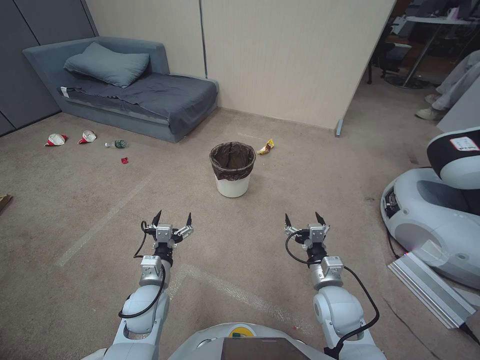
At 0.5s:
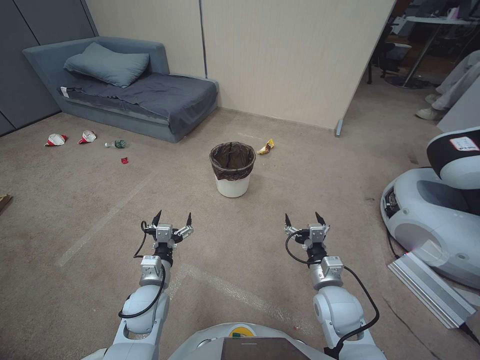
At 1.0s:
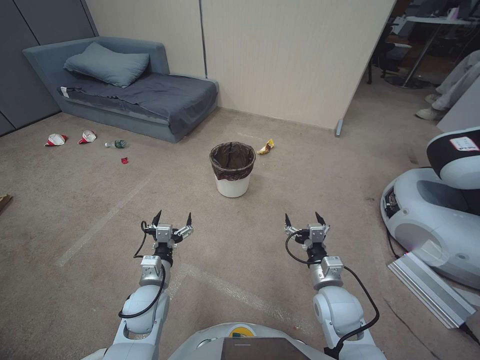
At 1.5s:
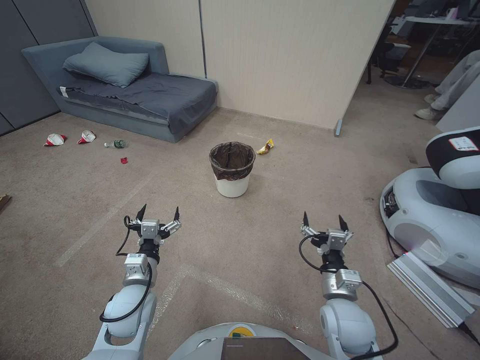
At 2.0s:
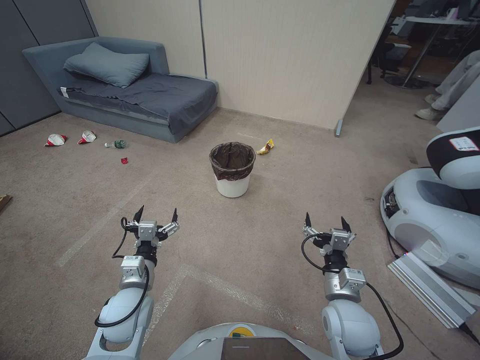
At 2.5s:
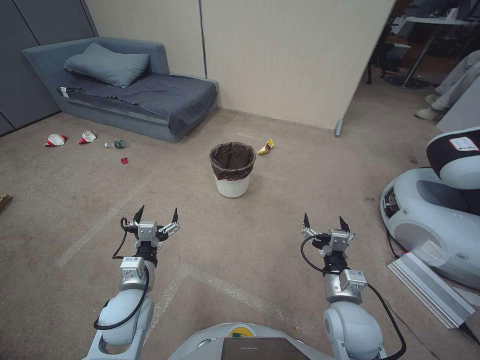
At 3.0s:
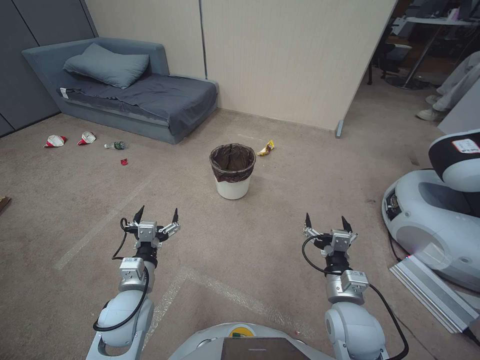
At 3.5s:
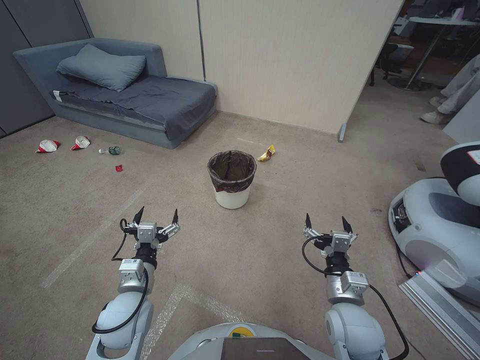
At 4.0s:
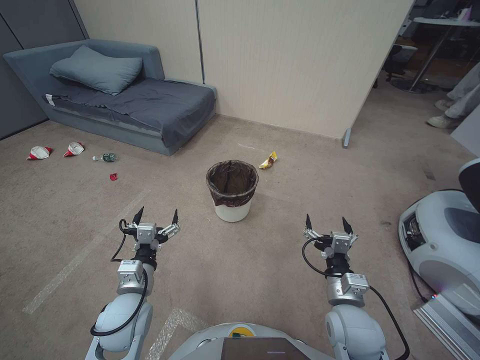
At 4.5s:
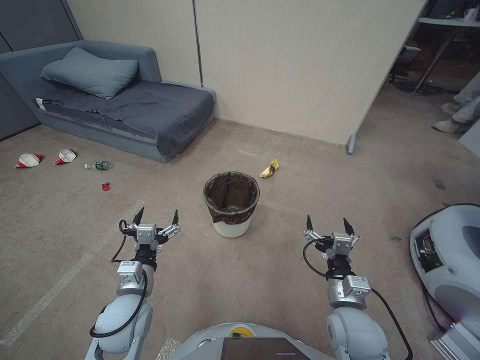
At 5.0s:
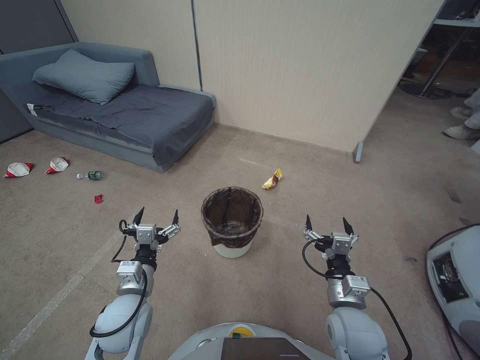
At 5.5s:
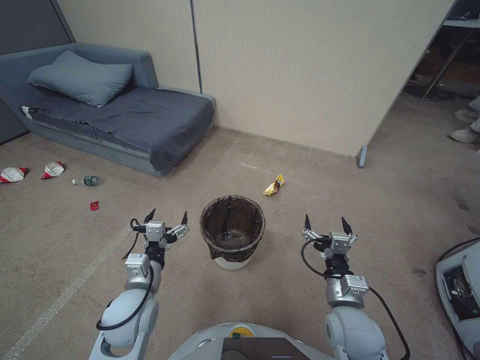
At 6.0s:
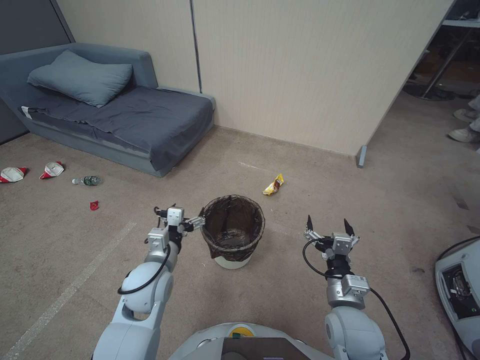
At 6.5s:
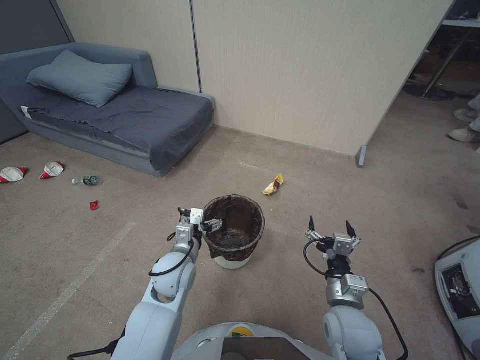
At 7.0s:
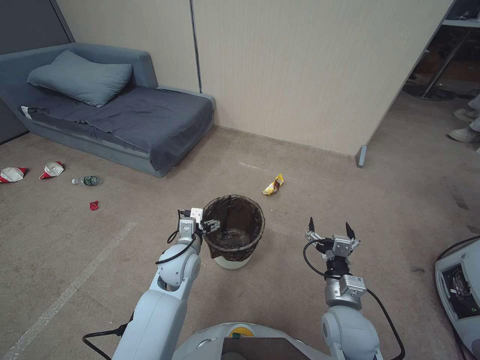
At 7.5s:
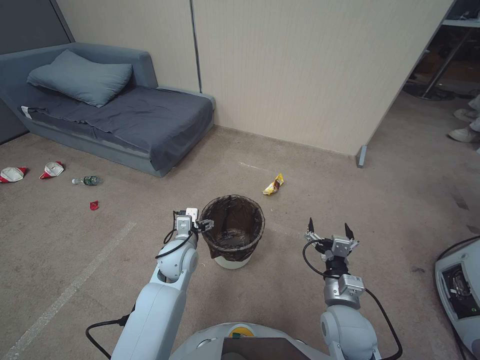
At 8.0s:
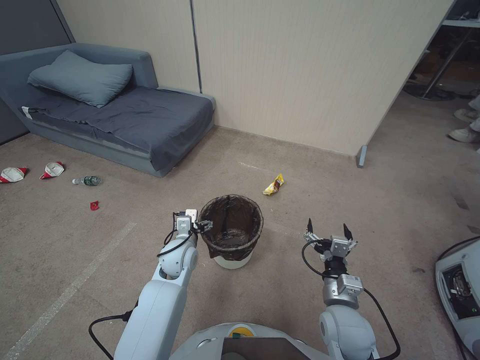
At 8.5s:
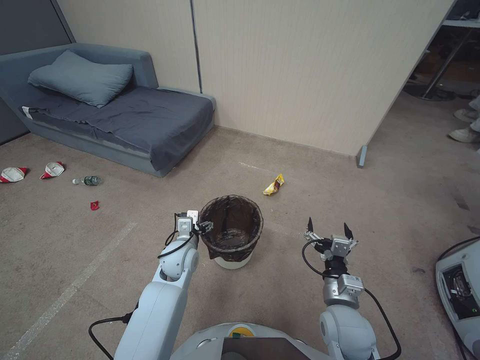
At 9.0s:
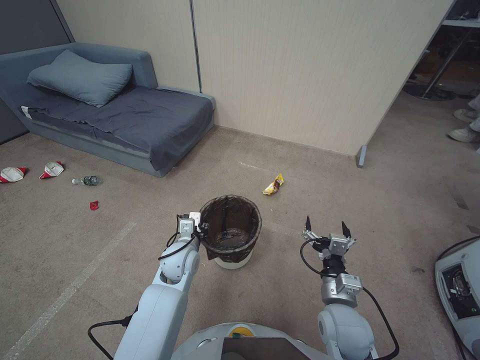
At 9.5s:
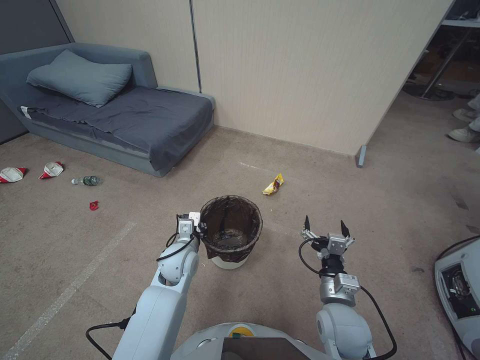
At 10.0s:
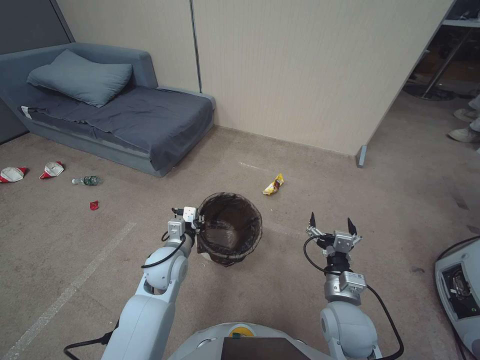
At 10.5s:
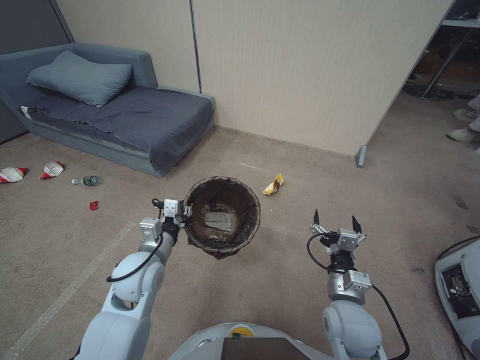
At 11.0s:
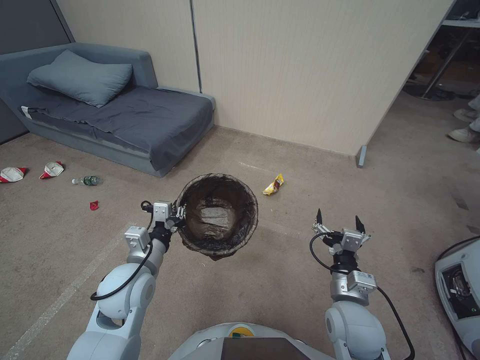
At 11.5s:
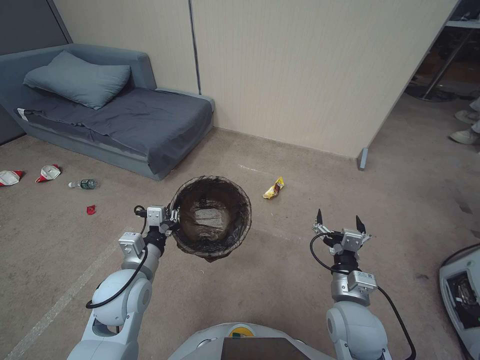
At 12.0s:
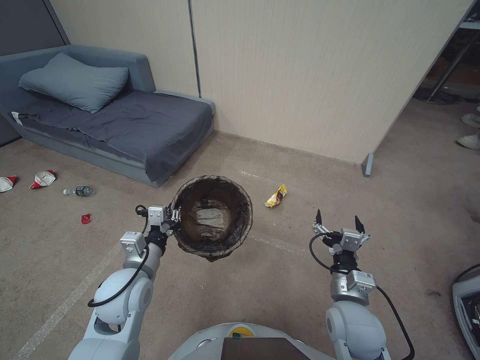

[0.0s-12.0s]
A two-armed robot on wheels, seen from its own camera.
Task of the whole recording: Pick up the trash bin, then pick up the garbage from the floor and place it into the trash bin.
4.0s to 6.0s: The left gripper moves approximately 5 cm.
6.0s to 8.0s: The left gripper is displaced forward and downward by approximately 10 cm.
8.0s to 10.0s: The left gripper closes.
10.0s to 12.0s: The left gripper shifts roughly 10 cm backward, to the left and upward.

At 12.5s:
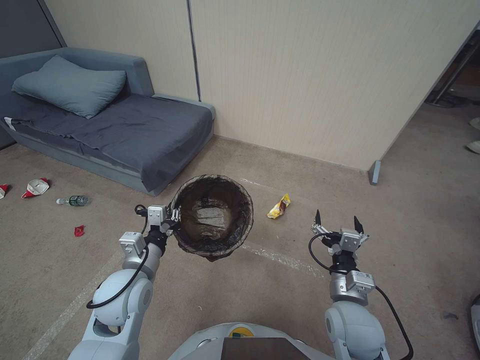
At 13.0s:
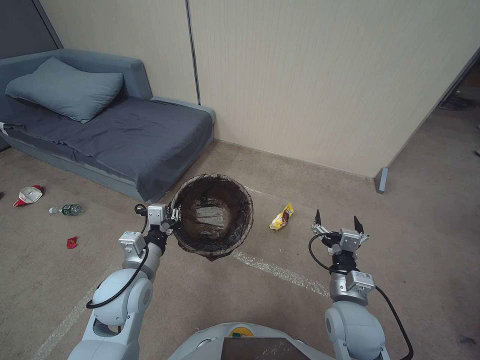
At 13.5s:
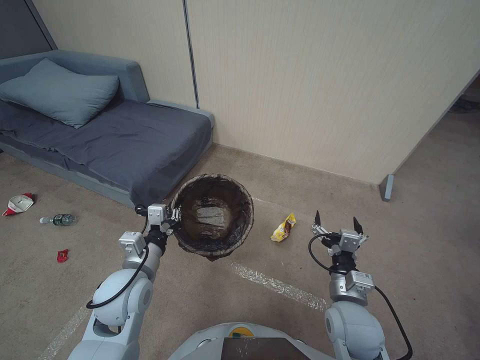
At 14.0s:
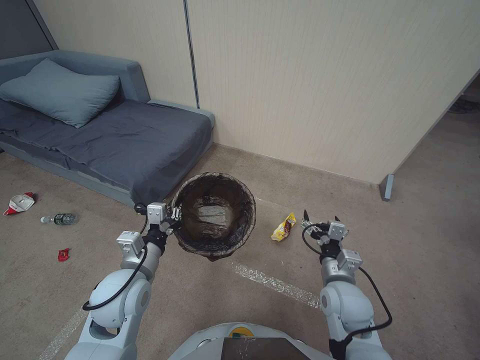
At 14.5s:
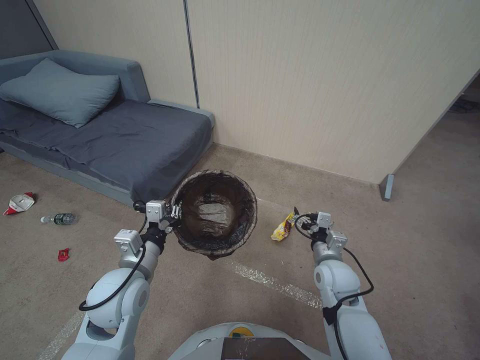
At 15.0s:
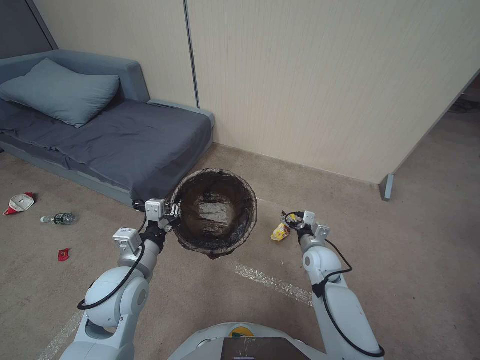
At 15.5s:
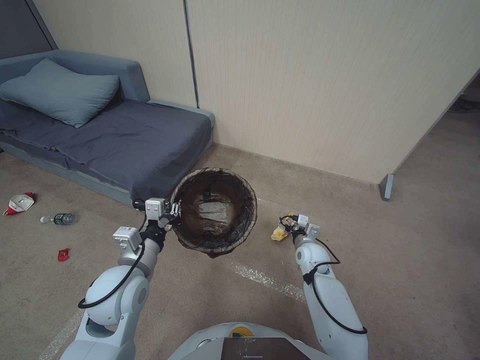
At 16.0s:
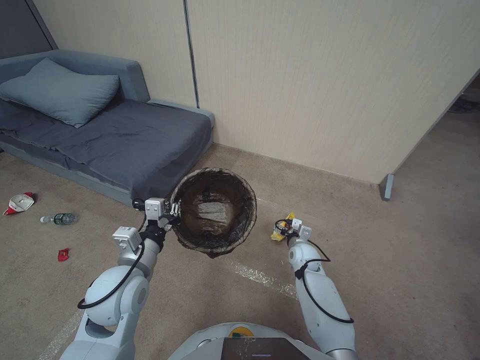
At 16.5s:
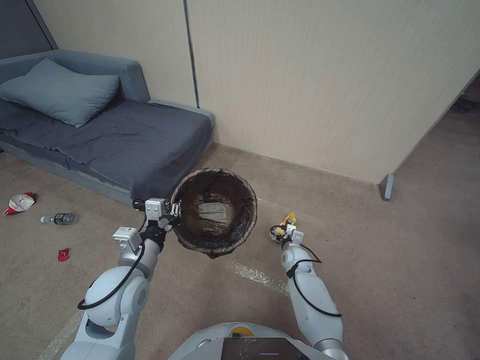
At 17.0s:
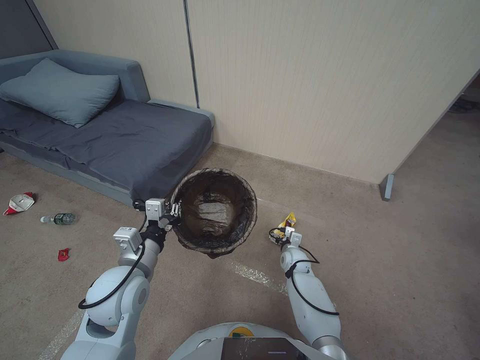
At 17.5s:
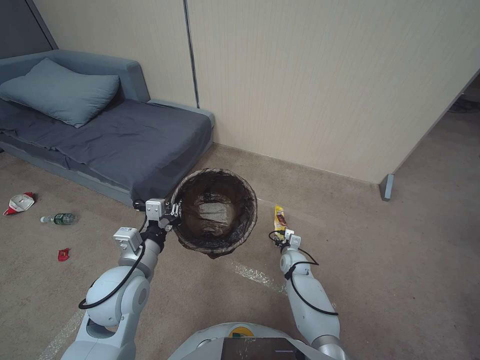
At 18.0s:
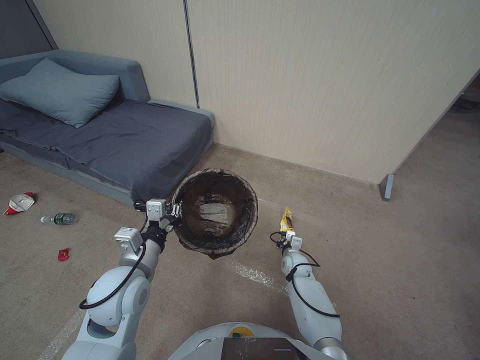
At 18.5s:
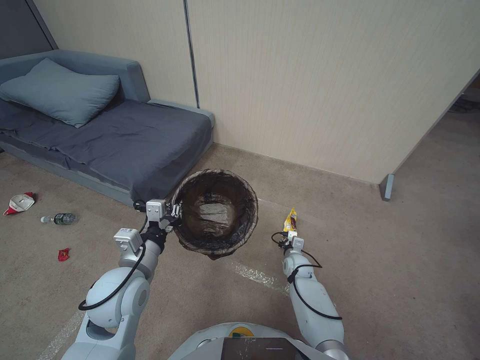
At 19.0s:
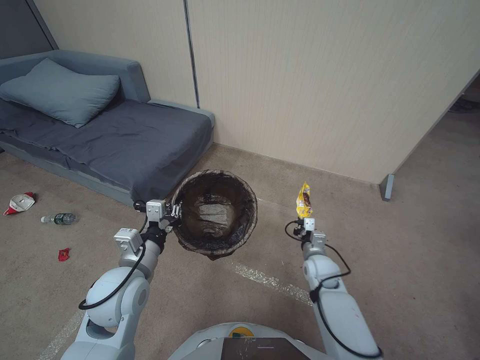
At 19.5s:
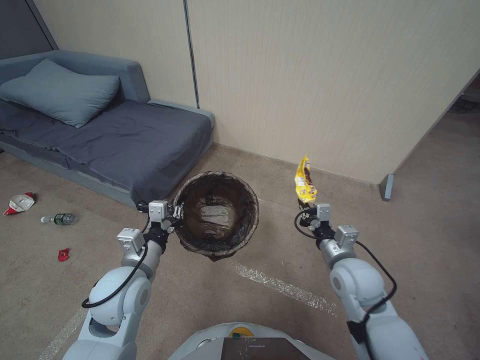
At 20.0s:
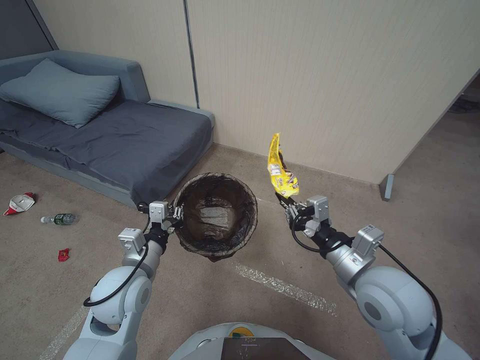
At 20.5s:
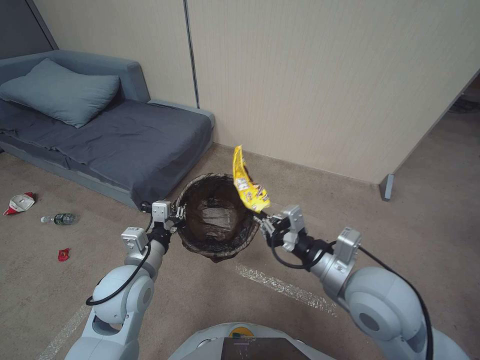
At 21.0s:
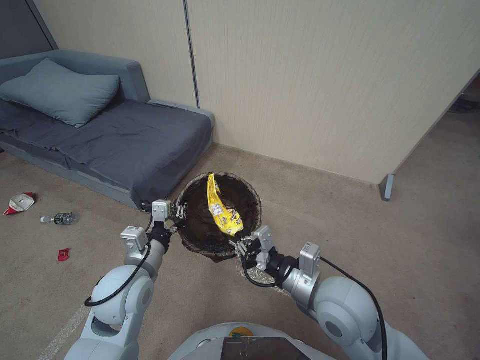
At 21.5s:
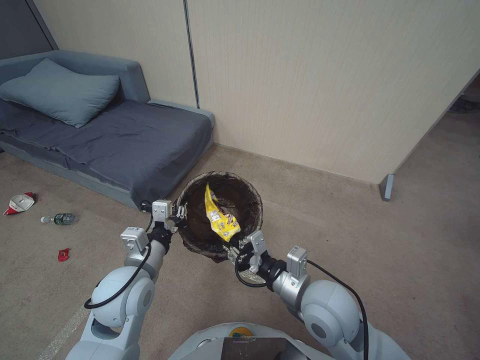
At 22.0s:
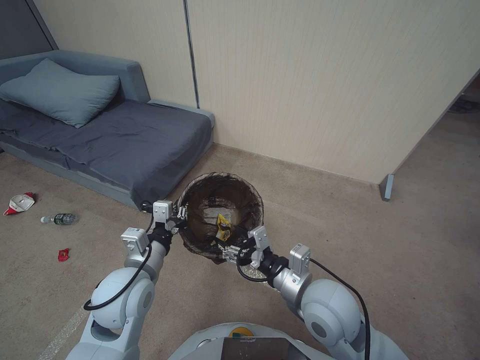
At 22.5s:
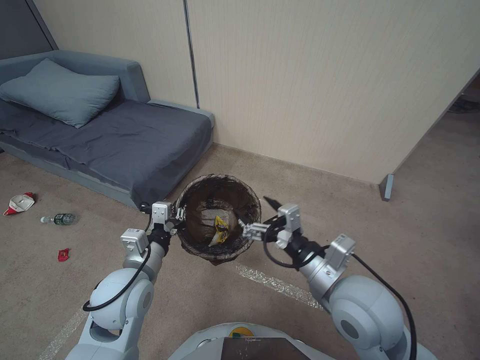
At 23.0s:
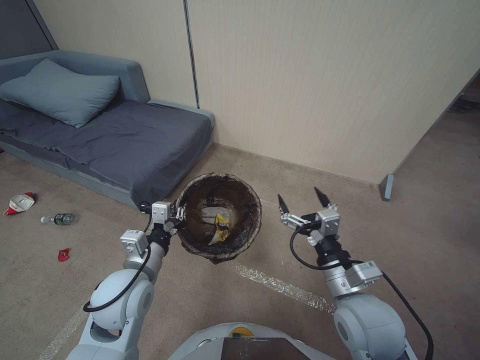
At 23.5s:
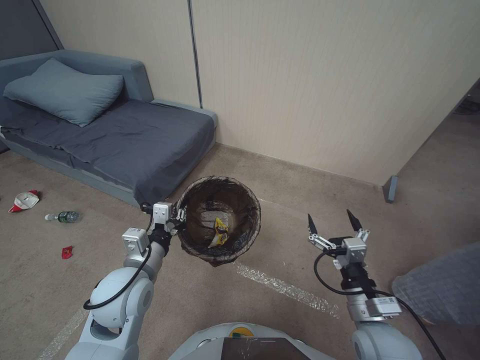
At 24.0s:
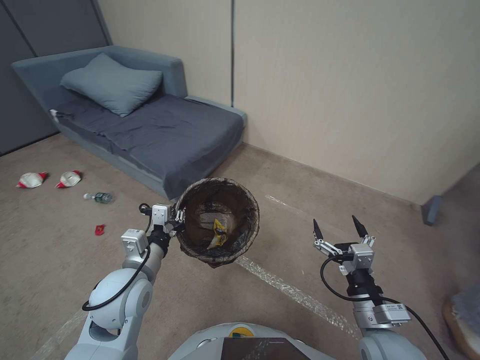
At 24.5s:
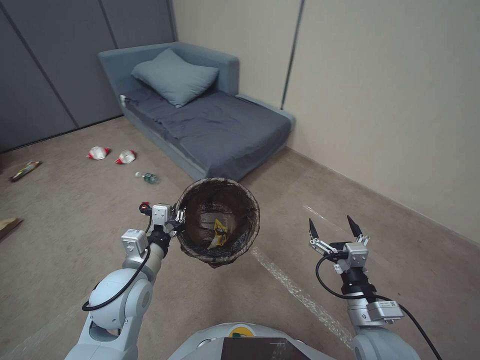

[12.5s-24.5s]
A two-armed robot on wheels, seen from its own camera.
Task of the whole recording: Pick up the trash bin, then pick up the garbage from the floor and place it into the trash bin.
12.5s to 14.5s: The right gripper travels forward by some 10 cm.
14.5s to 16.5s: The right gripper is displaced downward and forward by about 20 cm.
16.5s to 18.5s: The right gripper closes its fingers.
18.5s to 20.5s: The right gripper goes approximately 40 cm upward and backward.
20.5s to 22.5s: The right gripper opens its fingers.
22.5s to 24.5s: The right gripper travels downward, to the right and backward by about 15 cm.

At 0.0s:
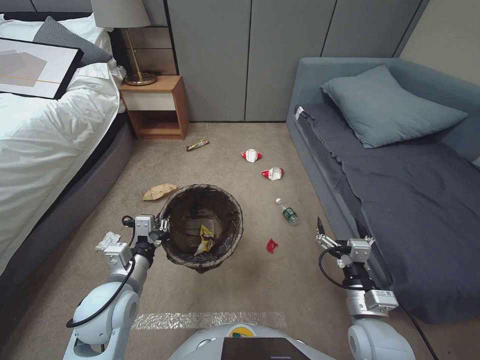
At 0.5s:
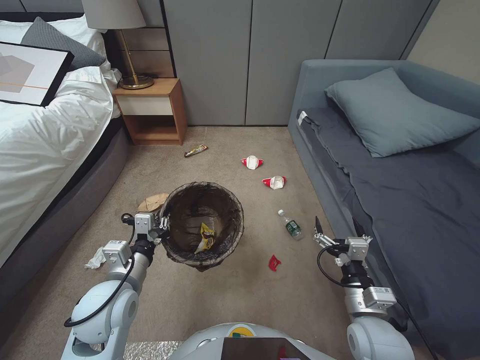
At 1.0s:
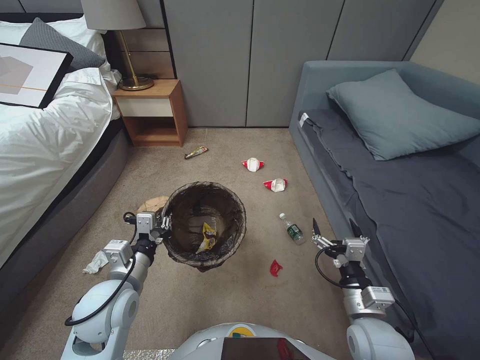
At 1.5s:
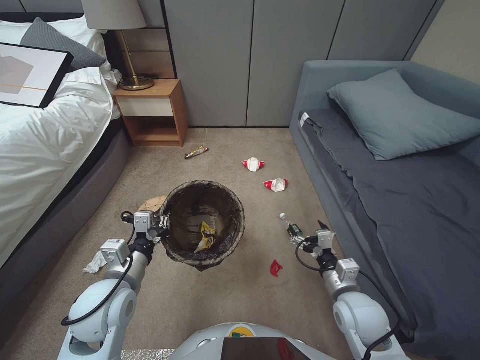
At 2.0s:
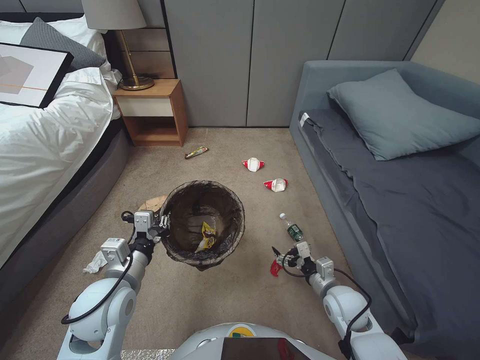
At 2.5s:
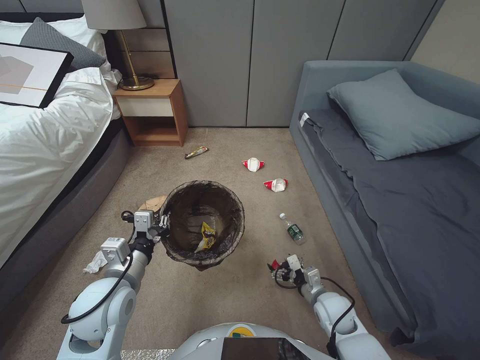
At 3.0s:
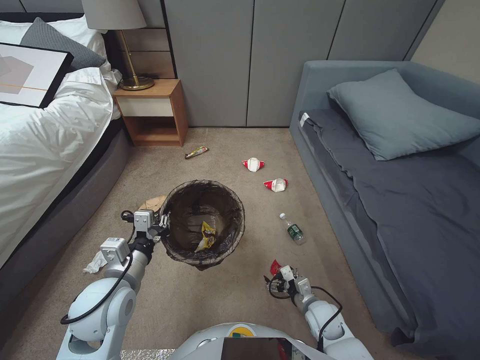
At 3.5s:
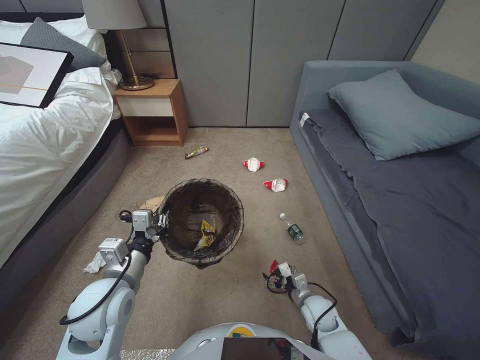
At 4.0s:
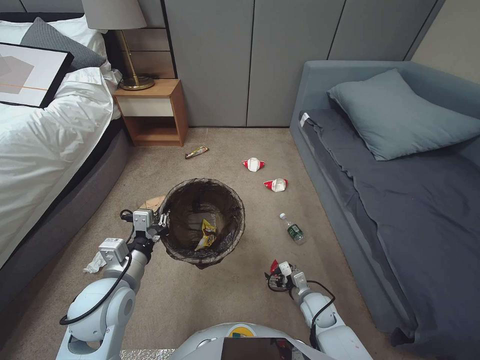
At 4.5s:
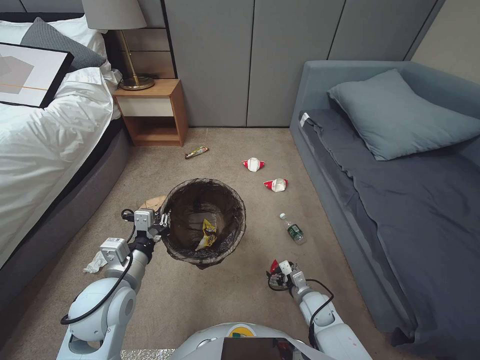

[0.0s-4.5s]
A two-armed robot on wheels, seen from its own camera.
Task of the whole recording: Pick up the trash bin, then pick up the garbage from the floor and place it into the trash bin.
0.0s to 2.0s: The right gripper goes roughly 10 cm forward and downward.
2.0s to 4.5s: The right gripper shifts roughly 15 cm downward.
